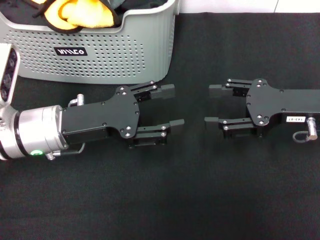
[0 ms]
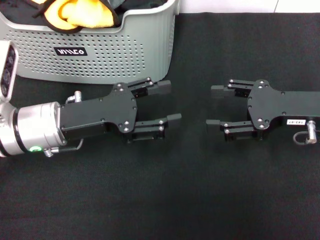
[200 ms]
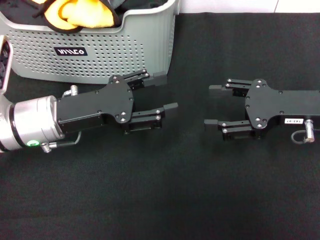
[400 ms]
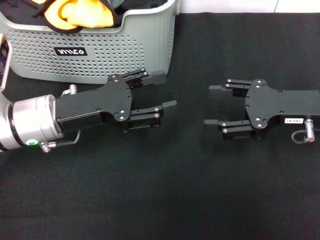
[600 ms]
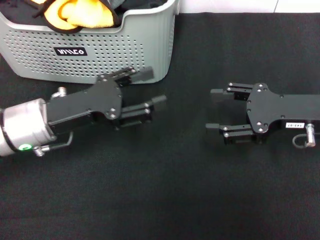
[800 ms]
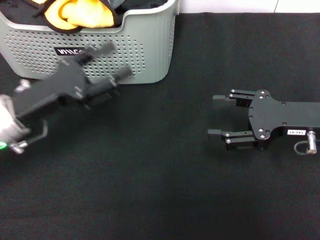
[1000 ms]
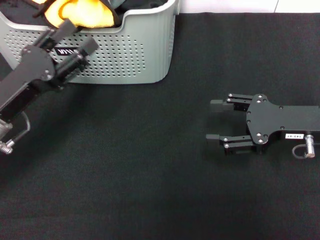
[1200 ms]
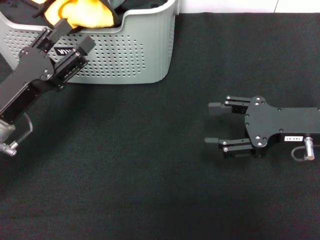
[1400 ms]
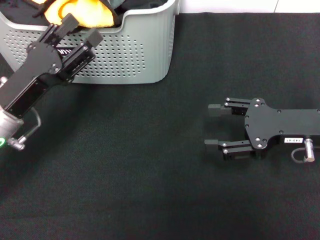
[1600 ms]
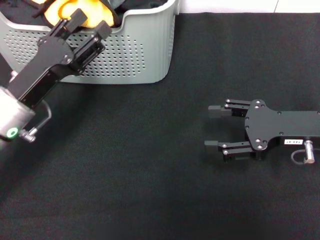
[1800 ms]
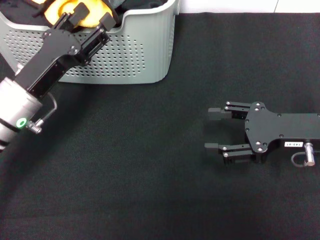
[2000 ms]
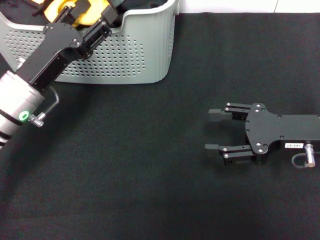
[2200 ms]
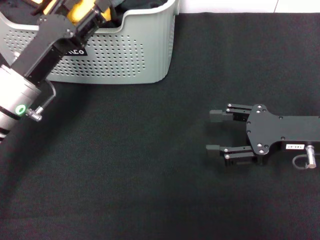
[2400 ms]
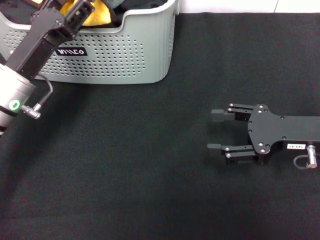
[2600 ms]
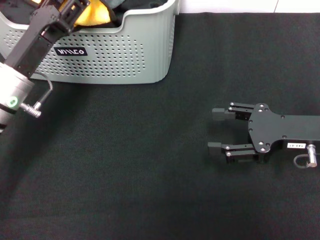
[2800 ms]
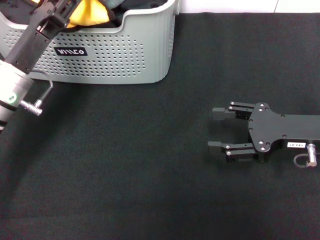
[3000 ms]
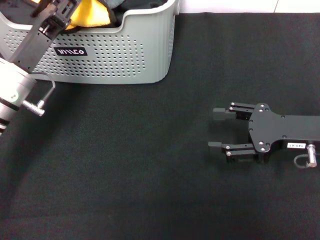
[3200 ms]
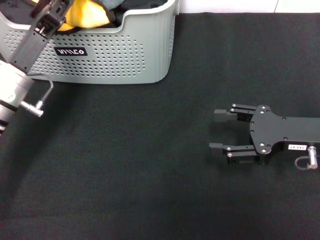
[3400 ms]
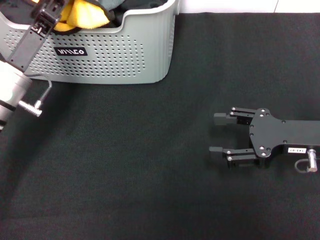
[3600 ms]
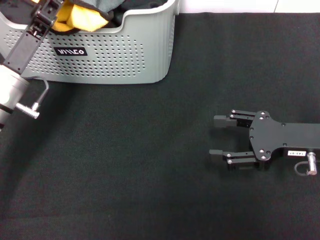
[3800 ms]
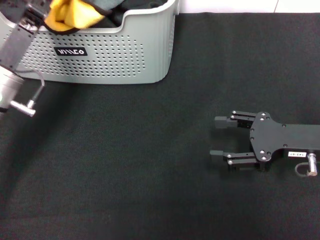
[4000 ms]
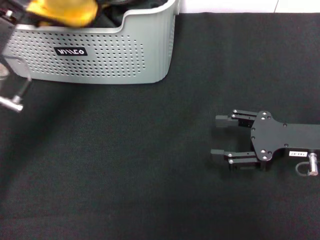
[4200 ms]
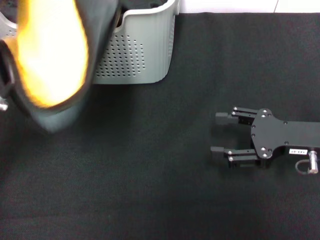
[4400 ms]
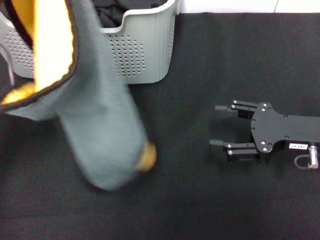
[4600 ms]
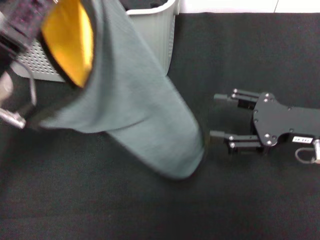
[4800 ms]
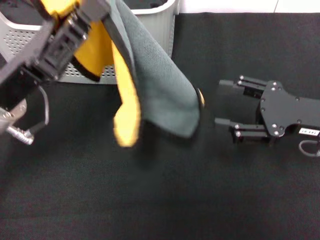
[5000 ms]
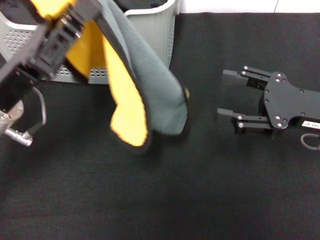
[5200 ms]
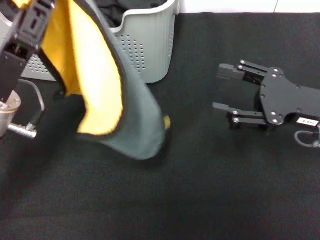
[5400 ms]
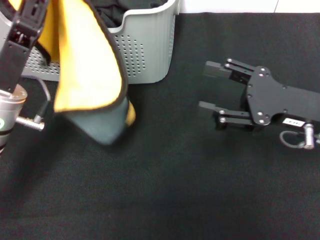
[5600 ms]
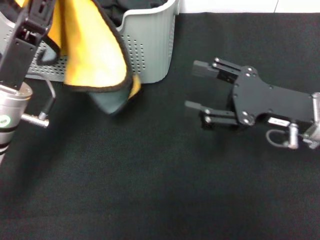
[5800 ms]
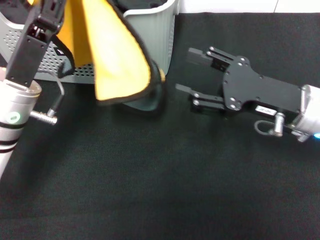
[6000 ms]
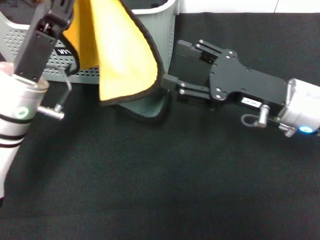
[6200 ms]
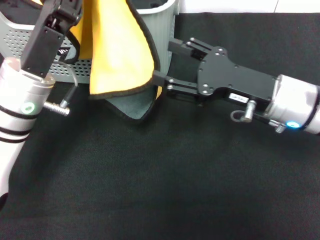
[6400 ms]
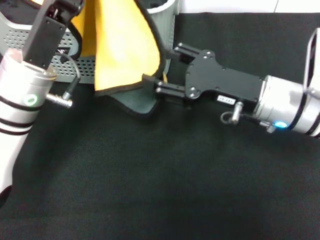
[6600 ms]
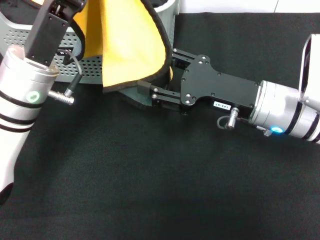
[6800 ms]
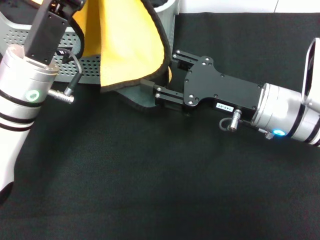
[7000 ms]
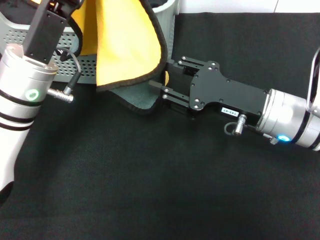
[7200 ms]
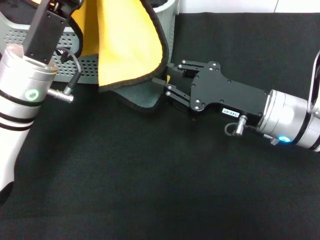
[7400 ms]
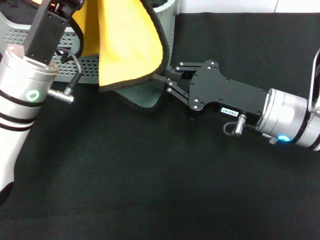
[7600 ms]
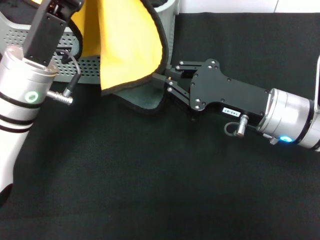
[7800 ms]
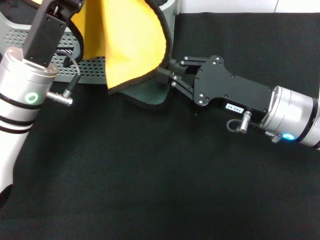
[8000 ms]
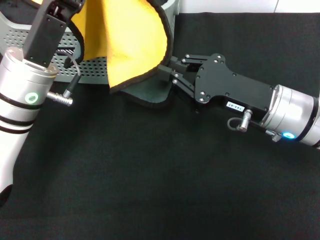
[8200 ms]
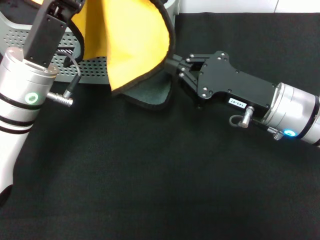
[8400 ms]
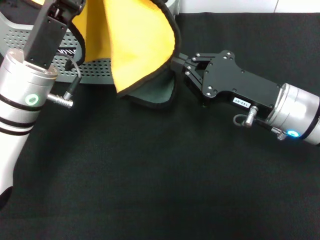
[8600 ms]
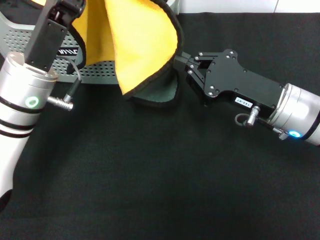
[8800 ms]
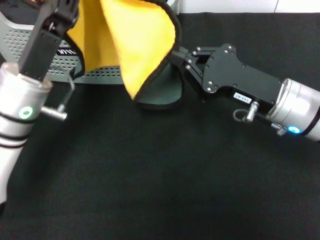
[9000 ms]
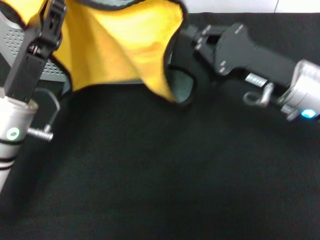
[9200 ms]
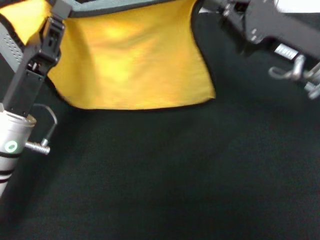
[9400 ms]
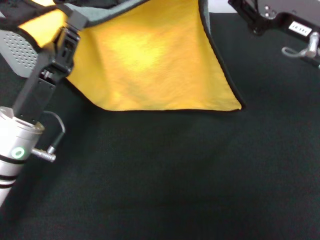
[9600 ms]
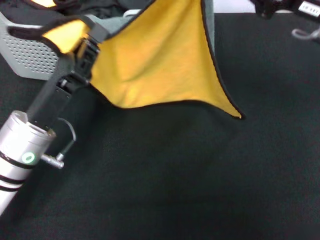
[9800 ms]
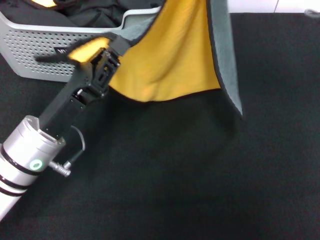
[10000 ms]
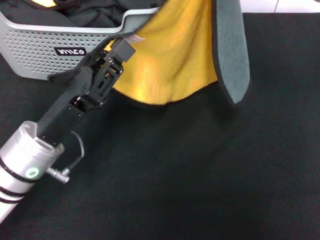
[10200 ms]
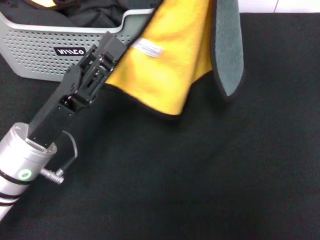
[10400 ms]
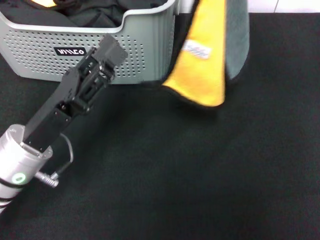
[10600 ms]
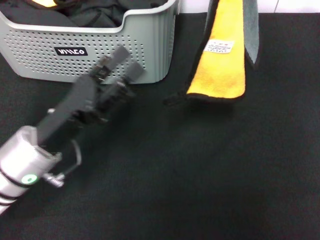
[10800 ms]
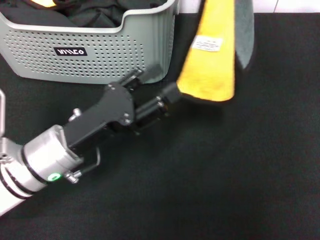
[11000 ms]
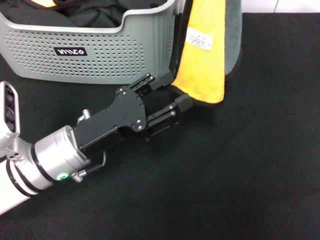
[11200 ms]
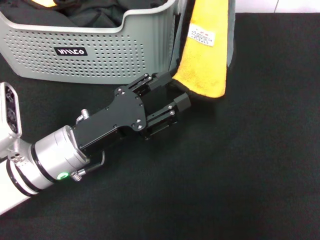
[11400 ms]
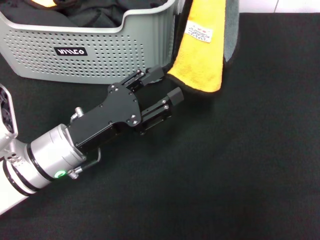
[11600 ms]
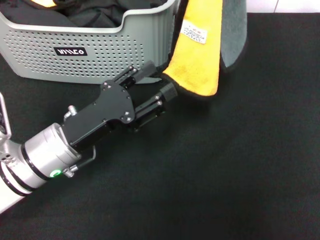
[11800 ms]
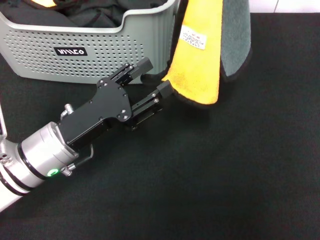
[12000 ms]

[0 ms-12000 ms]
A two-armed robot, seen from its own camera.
Task of the whole recording: pick up the towel from the storage box and lay it flat on the black tablecloth.
Step, 0 ms to 3600 ms: Pick up a towel with the left gripper.
Step, 3800 ms to 8600 ms: Spread the towel flat with the left gripper.
0 ms to 1600 ms: The left gripper moves approximately 5 cm.
1600 ms to 3000 ms: The grippers make only small movements.
3000 ms to 4400 ms: The left gripper moves upward, approximately 5 cm, and closes.
4400 ms to 6000 ms: The right gripper shifts roughly 5 cm to the left; the left gripper travels downward by some 5 cm.
6000 ms to 7600 ms: The right gripper closes.
7600 ms to 9000 ms: The right gripper closes.
9000 ms to 10400 ms: The left gripper heads backward, covering approximately 5 cm, while the right gripper travels upward and to the right by roughly 15 cm.
10400 ms to 12000 ms: The left gripper opens up.

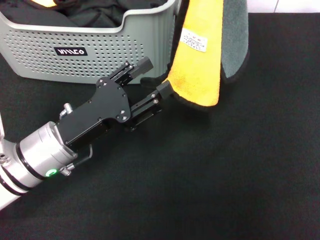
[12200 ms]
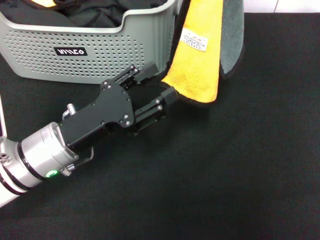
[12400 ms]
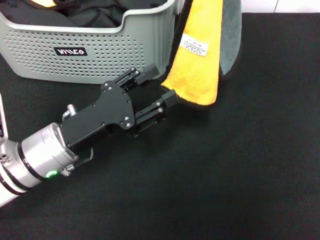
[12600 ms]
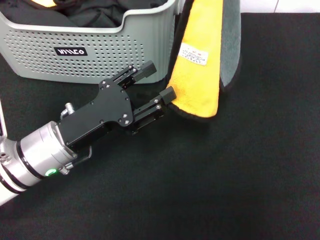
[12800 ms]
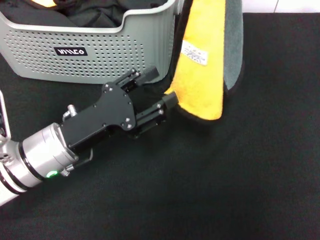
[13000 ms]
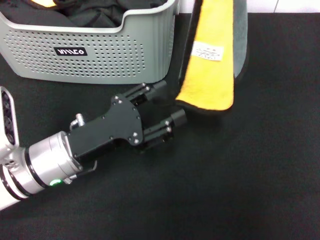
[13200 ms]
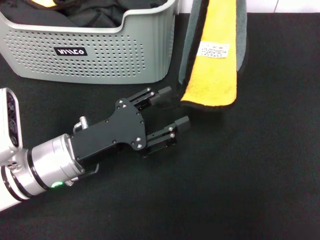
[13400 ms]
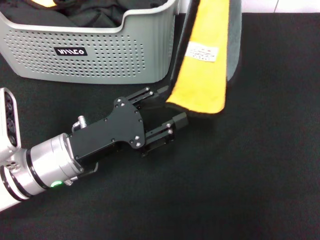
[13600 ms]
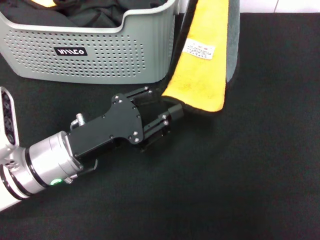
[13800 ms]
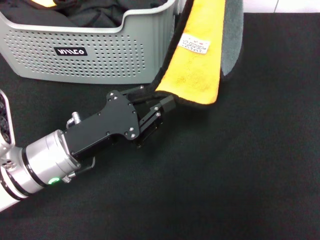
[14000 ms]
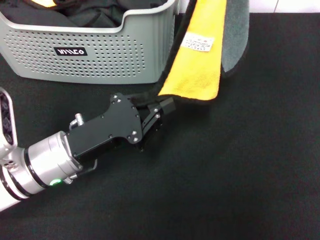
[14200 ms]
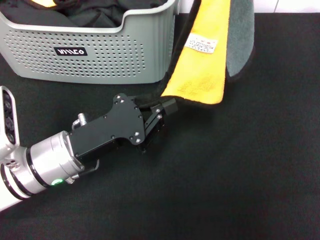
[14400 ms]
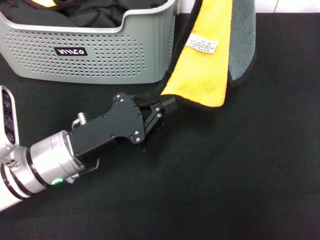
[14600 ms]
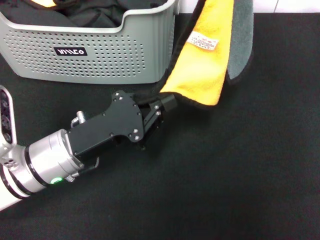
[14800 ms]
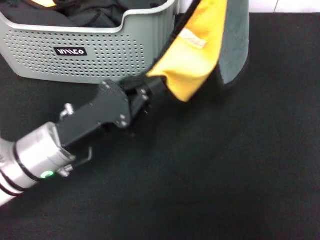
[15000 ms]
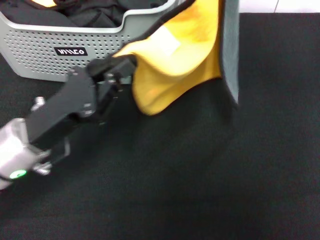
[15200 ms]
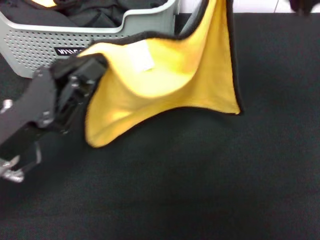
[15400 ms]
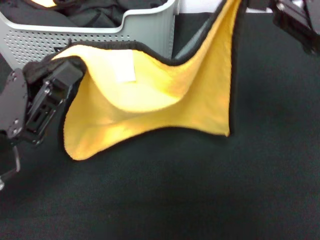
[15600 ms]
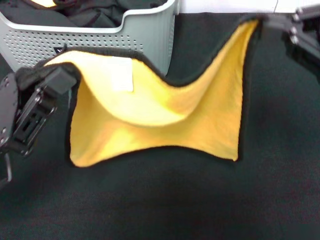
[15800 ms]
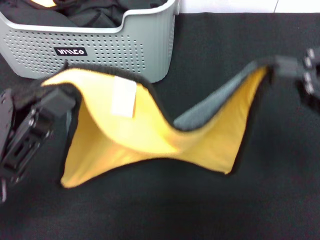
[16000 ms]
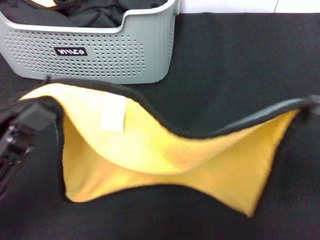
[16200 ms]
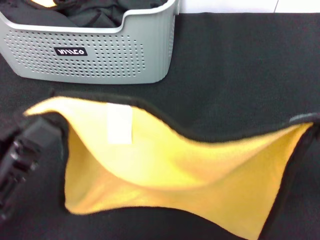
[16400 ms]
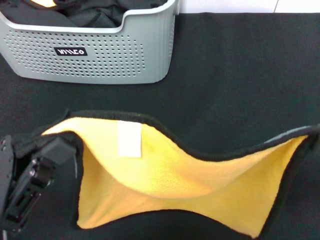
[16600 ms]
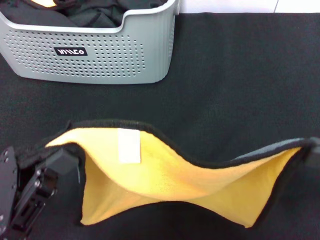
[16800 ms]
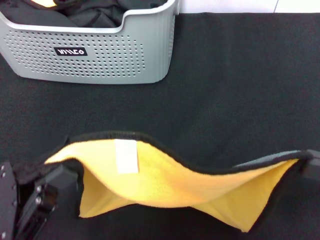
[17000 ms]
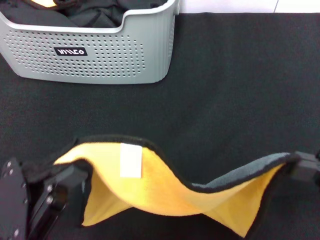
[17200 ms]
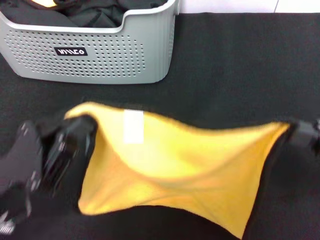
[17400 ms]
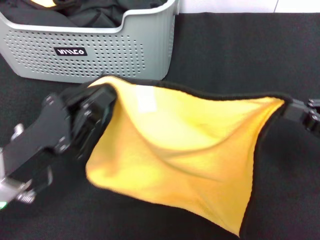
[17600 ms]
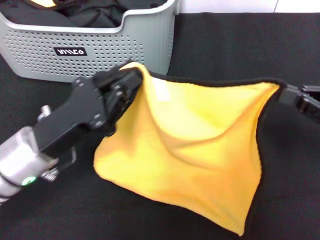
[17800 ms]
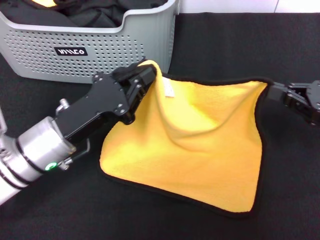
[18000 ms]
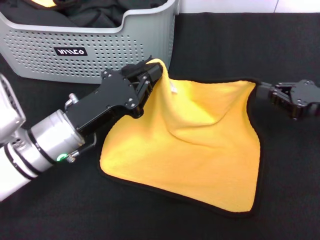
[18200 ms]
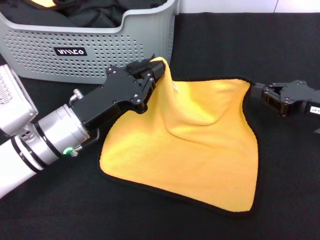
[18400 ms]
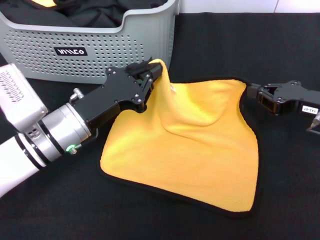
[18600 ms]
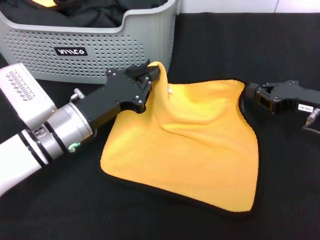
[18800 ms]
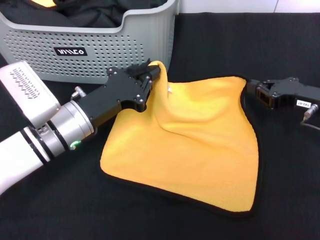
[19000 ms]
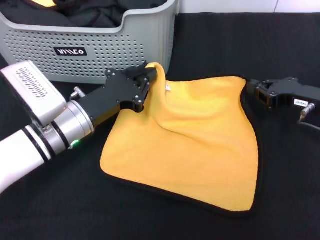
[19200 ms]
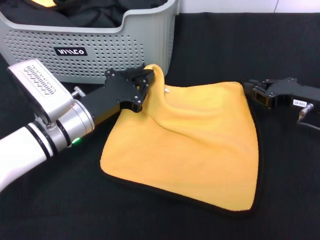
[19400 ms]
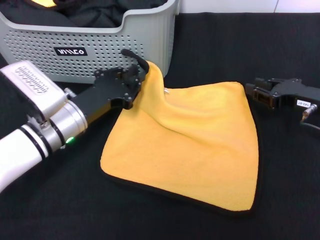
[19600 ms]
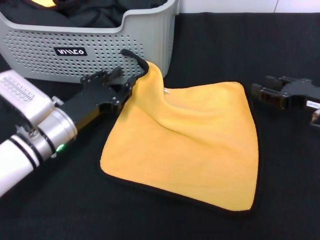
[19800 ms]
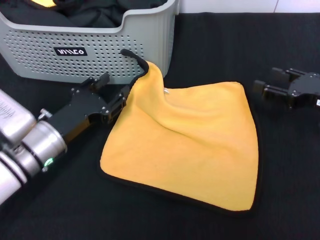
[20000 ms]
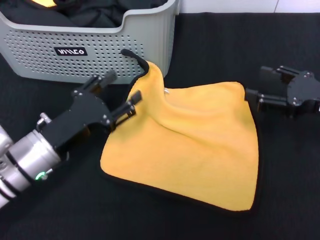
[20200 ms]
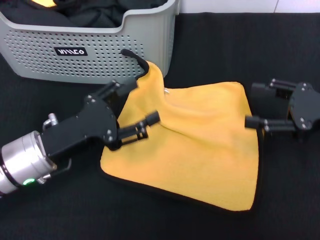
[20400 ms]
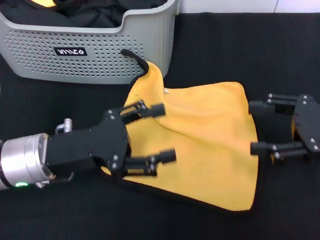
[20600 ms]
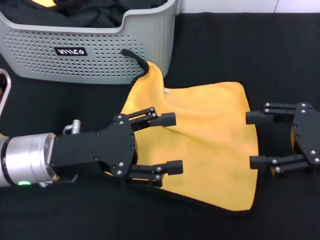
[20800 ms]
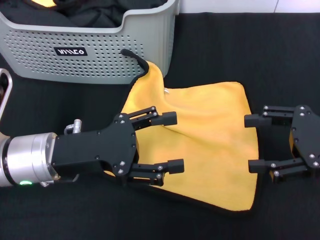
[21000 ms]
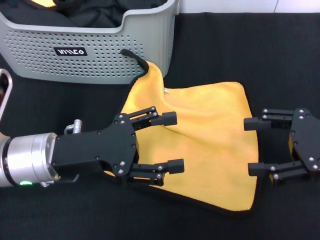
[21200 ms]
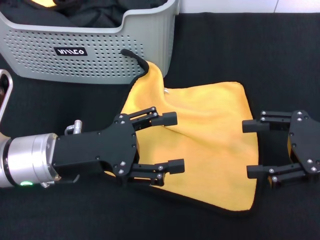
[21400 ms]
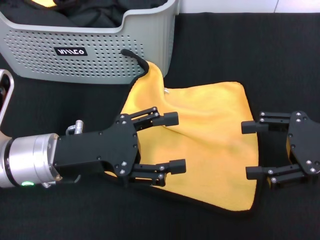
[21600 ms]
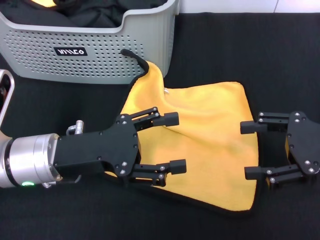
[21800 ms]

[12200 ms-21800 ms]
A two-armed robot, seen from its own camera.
Task of the whole recording: pick up the towel from the storage box and lay it flat on the black tablecloth.
Step, 12200 ms to 19400 ms: Spread the towel flat with the right gripper.
12200 ms to 13800 ms: The grippers move only a little.
13800 ms to 15400 ms: The left gripper moves to the left, some 5 cm, and closes up.
15400 ms to 17000 ms: The left gripper heads backward, covering approximately 10 cm, while the right gripper is displaced backward, downward and to the right by some 20 cm.
17000 ms to 18600 ms: The right gripper shifts approximately 20 cm forward and downward. Meanwhile the left gripper heads forward and to the right, covering approximately 20 cm.
18600 ms to 20200 ms: The right gripper opens; the left gripper shifts by roughly 5 cm, and opens.
20200 ms to 21800 ms: The right gripper moves about 5 cm. Meanwhile the left gripper goes approximately 5 cm upward.
